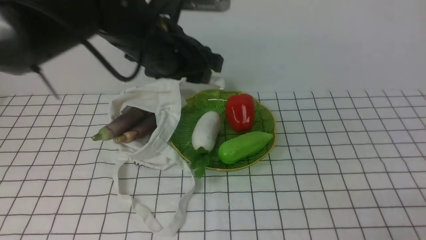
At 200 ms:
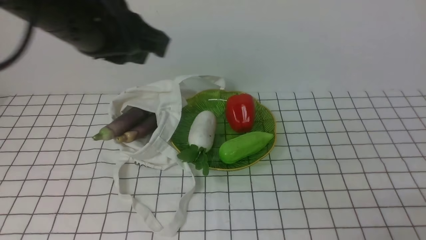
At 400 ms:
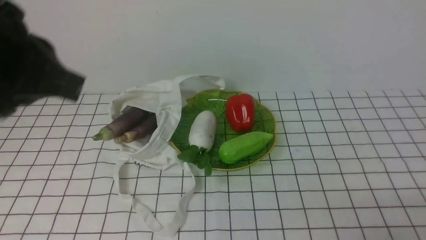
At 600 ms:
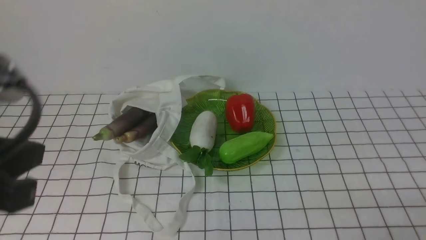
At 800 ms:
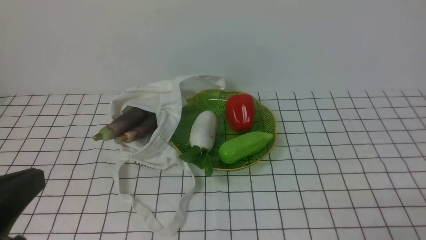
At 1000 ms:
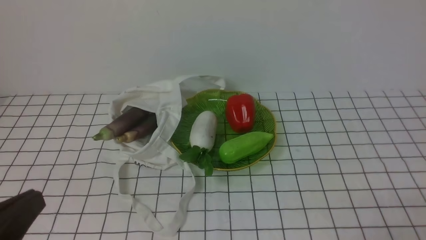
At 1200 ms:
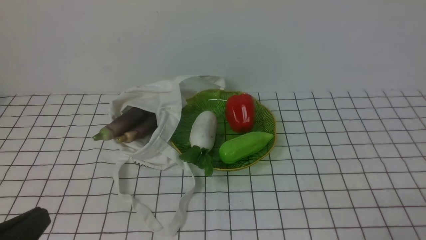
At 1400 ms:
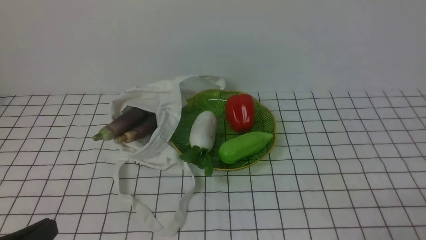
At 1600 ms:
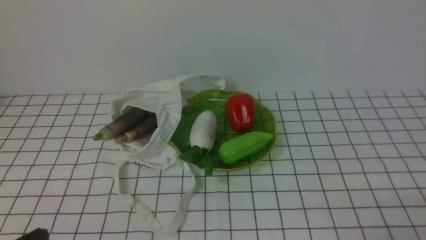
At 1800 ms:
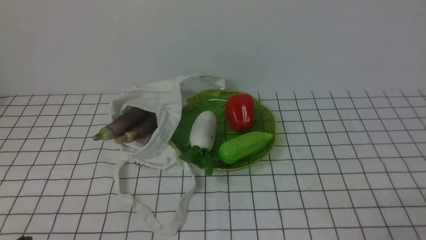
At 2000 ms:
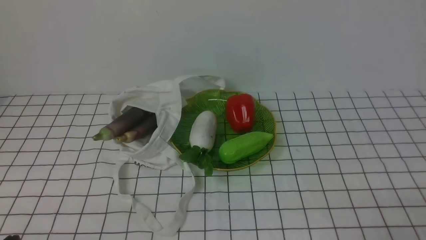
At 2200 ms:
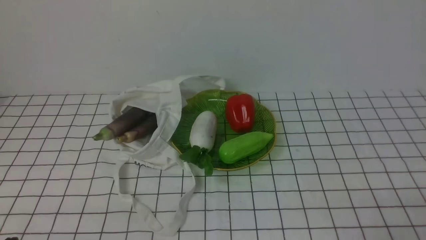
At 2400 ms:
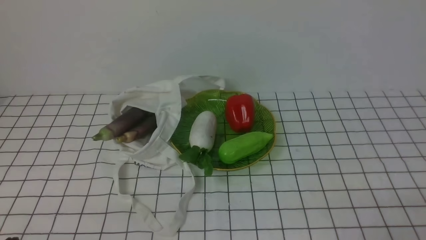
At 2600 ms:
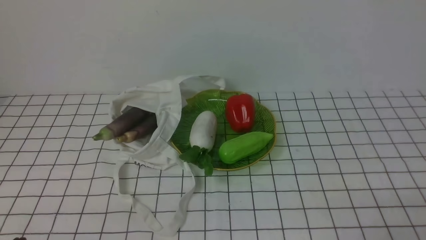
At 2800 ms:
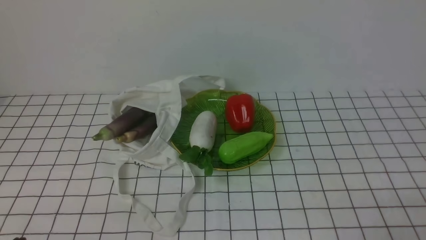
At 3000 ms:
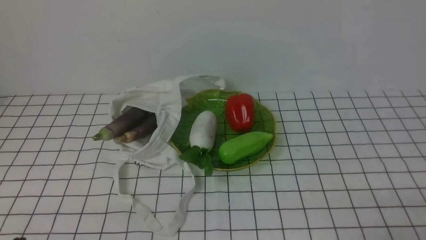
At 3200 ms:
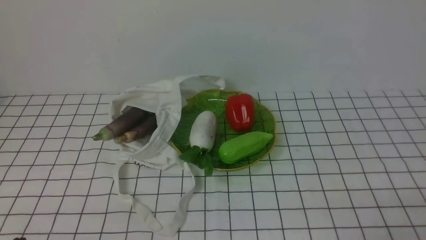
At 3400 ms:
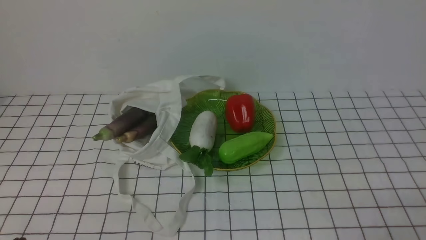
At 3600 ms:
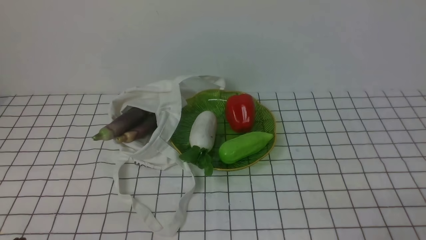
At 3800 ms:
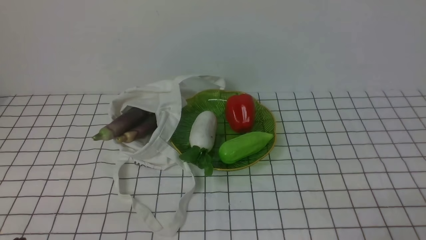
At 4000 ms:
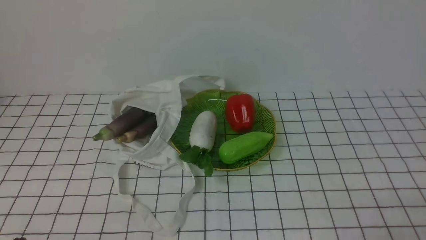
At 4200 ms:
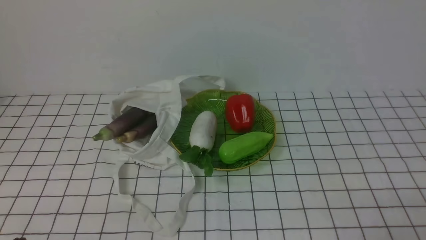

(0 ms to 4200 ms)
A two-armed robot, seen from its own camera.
Task of the whole recording: take vegetables from bag on white checkered tablecloth place on plate.
0 ms - 1400 ms: The left gripper moves backward, to the left and downward, some 35 cm, and closes.
1400 ms - 2800 ms: The left gripper is displaced downward by roughly 5 cm.
2800 ms - 4200 ms: The two grippers keep their place.
